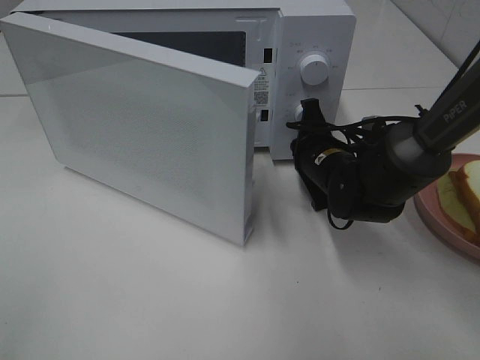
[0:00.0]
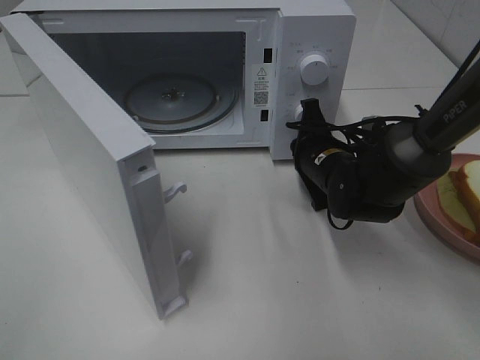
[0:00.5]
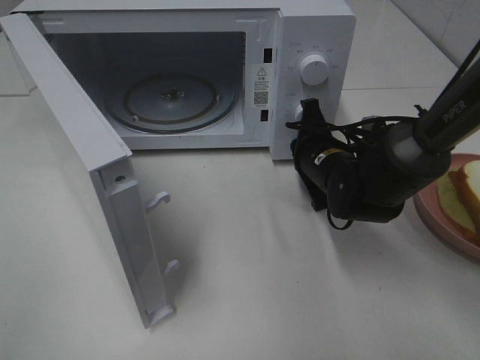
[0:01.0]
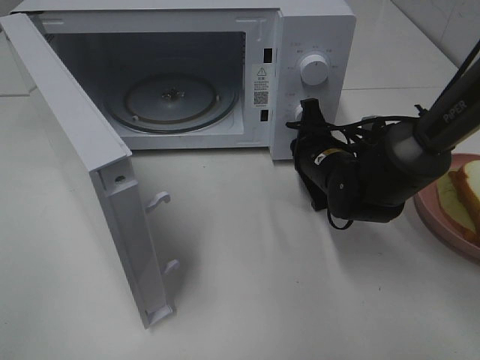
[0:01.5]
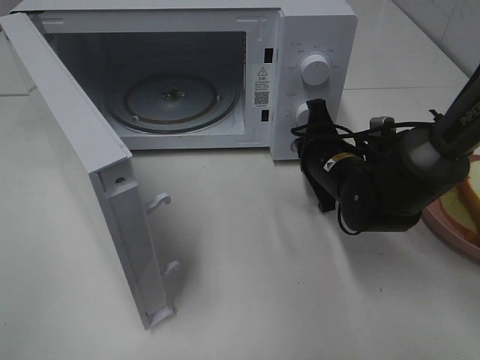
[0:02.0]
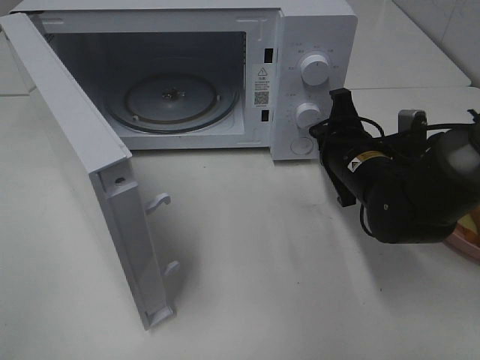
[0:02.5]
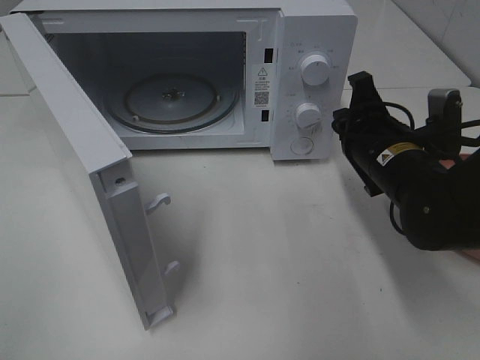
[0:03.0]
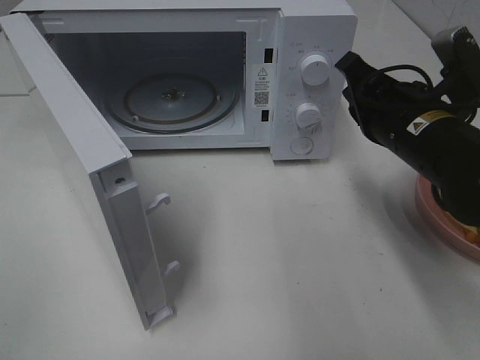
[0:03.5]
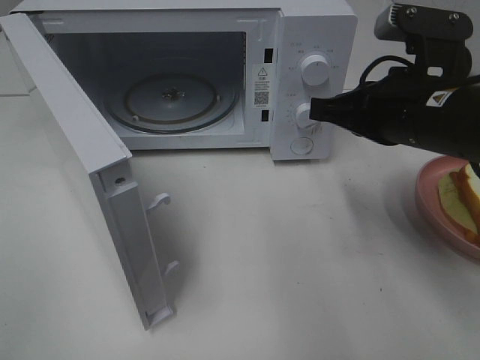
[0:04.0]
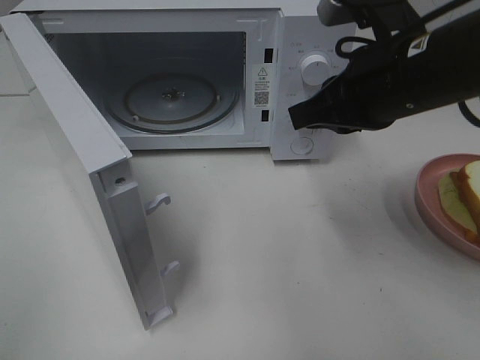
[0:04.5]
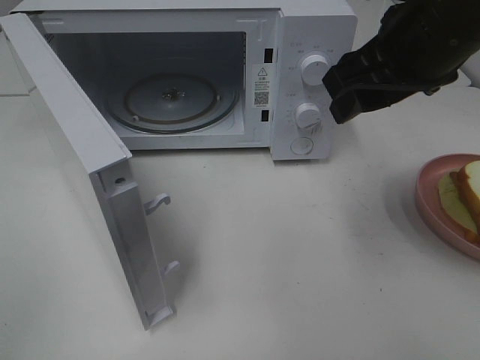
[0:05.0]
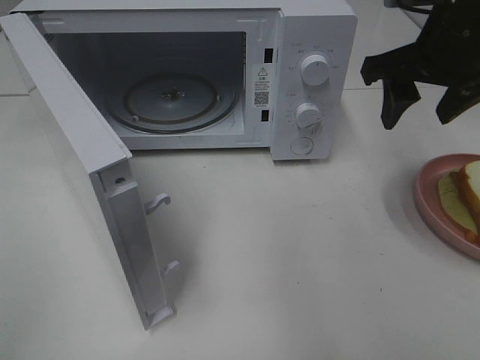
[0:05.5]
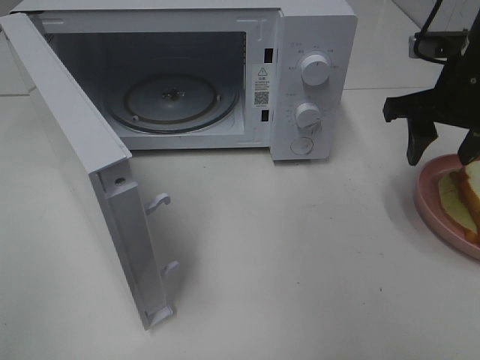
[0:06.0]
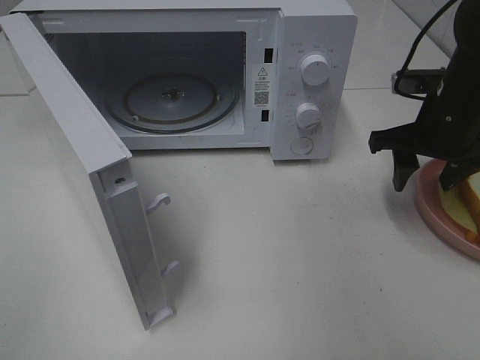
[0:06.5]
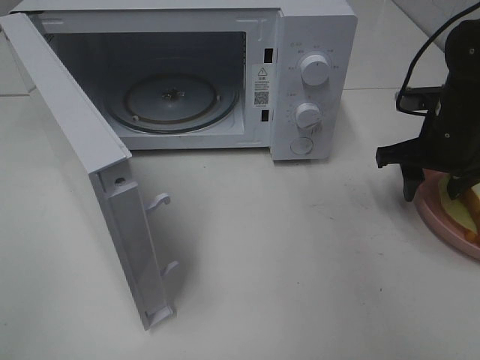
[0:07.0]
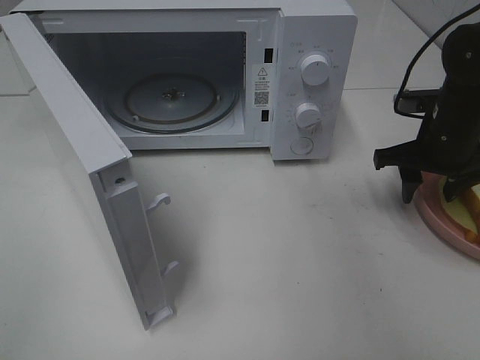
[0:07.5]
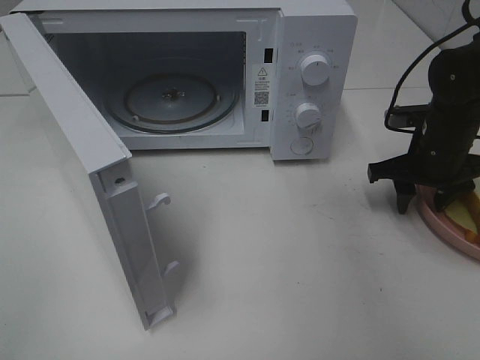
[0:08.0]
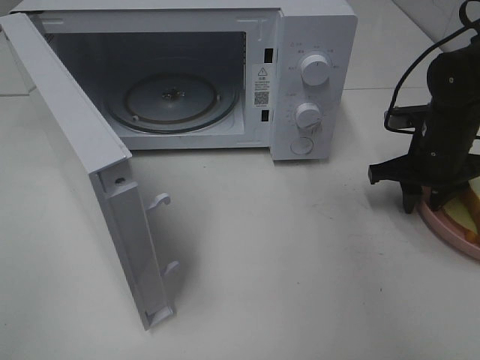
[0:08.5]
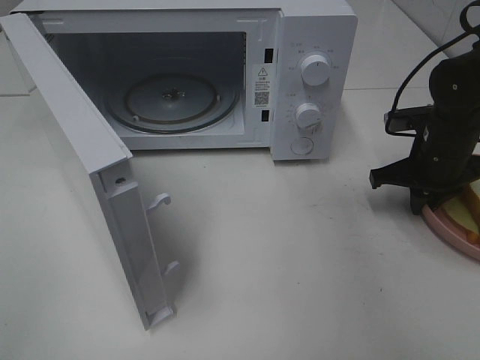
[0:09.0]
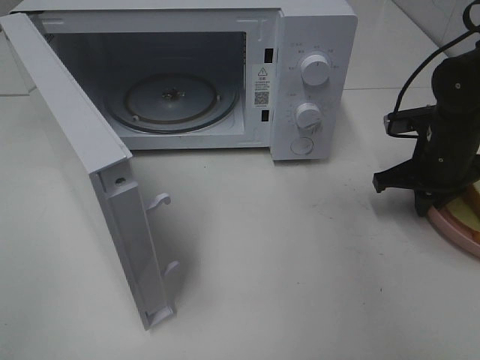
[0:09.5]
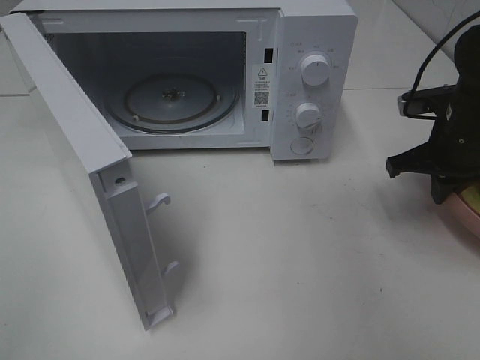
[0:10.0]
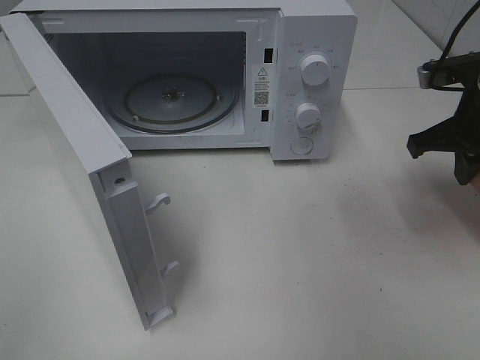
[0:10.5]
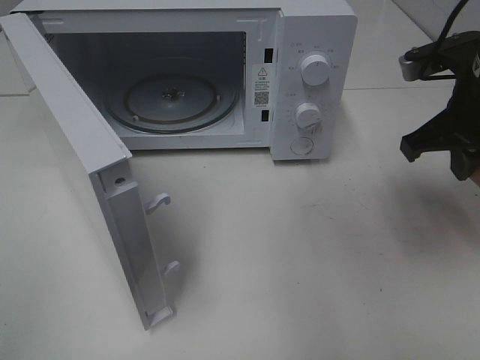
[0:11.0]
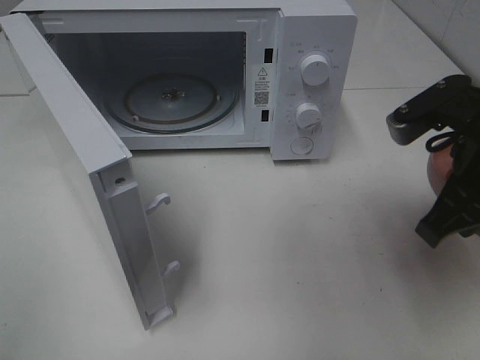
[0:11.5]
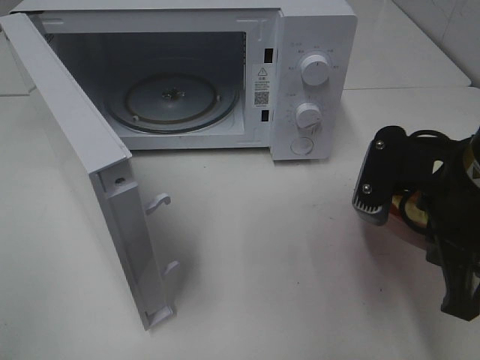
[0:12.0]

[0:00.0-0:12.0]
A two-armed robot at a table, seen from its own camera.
Task of the whole recording: Heat Sandwich.
Step, 0.0 to 2.0 s: Right hand: press the switch.
Step, 2.5 to 9.0 s: Right hand: grab the plate with the sandwich.
2.0 to 4.0 s: The right gripper heads upward and backward, covering some 15 cm.
4.0 to 6.0 s: The right gripper is displaced forward and to the right by approximately 10 cm, and opens.
6.0 to 8.0 s: The right gripper goes some 10 cm downward.
8.0 to 10.0 s: The right gripper closes its fingers.
10.0 to 12.0 s: The right gripper heads backward, to the left and upward, covering approximately 20 cm.

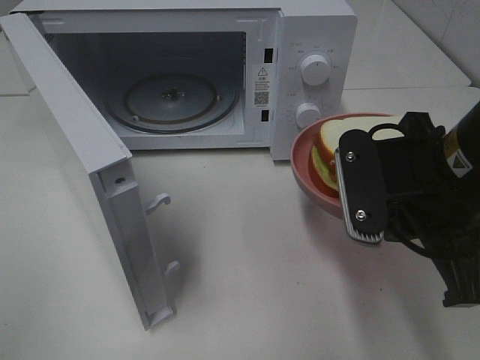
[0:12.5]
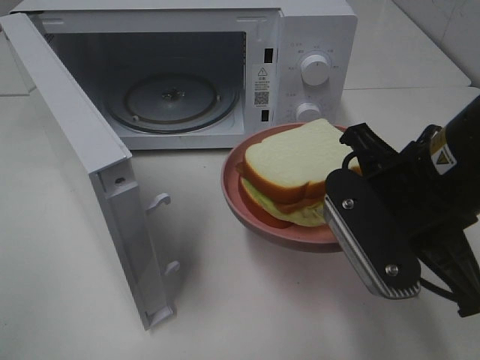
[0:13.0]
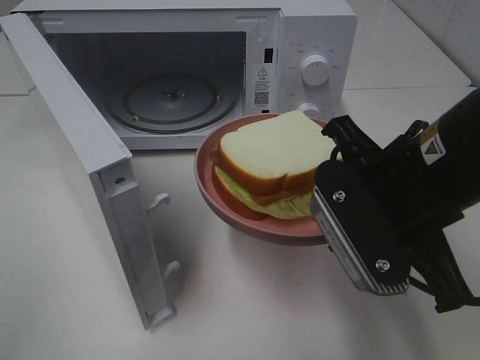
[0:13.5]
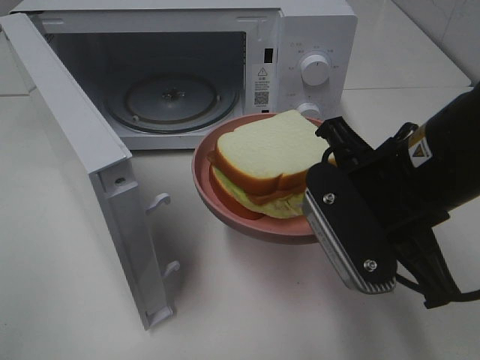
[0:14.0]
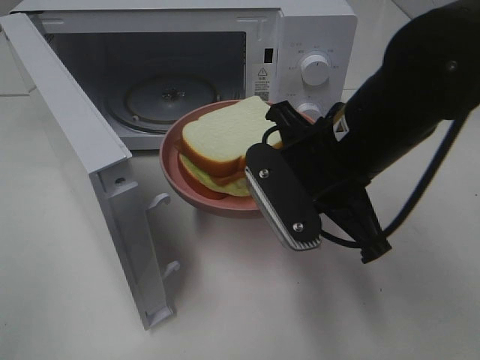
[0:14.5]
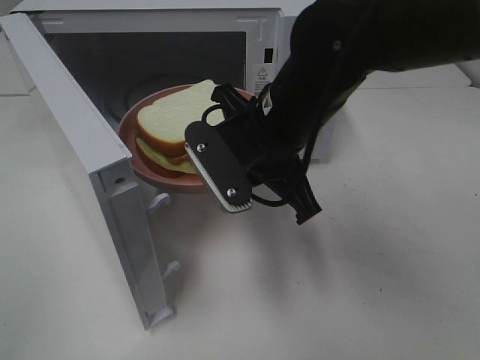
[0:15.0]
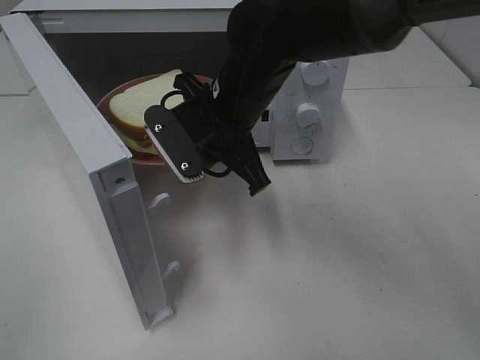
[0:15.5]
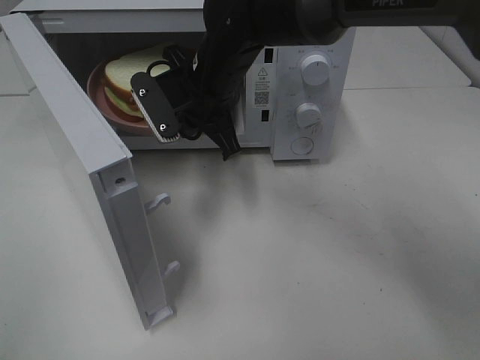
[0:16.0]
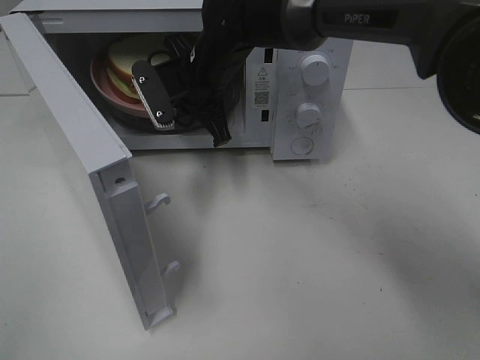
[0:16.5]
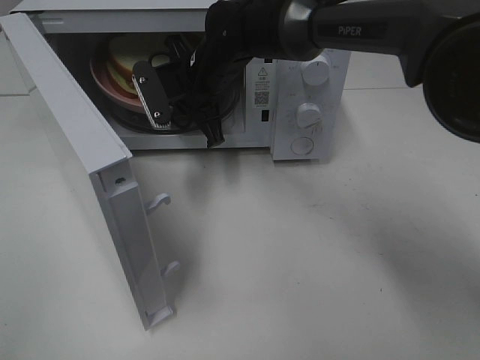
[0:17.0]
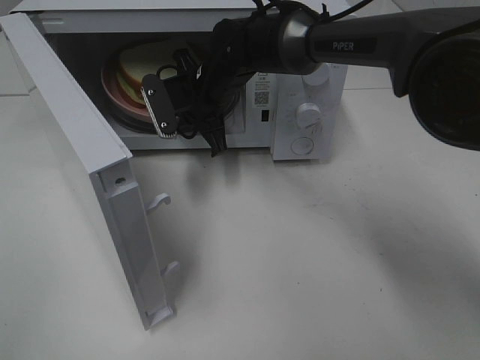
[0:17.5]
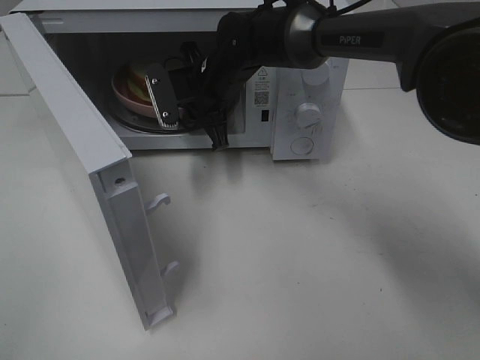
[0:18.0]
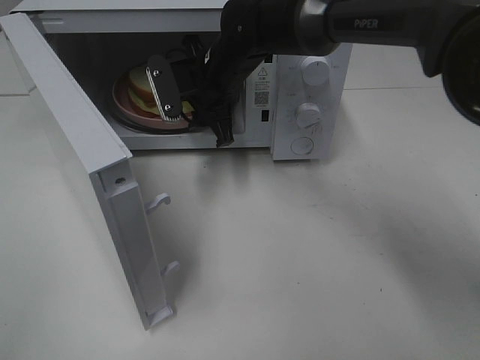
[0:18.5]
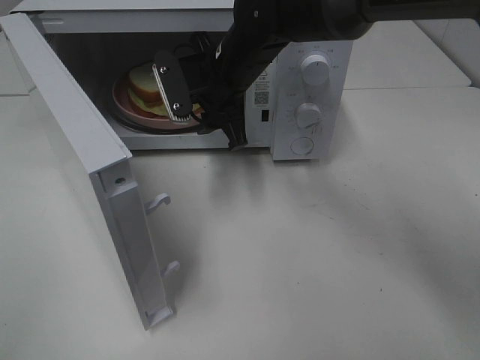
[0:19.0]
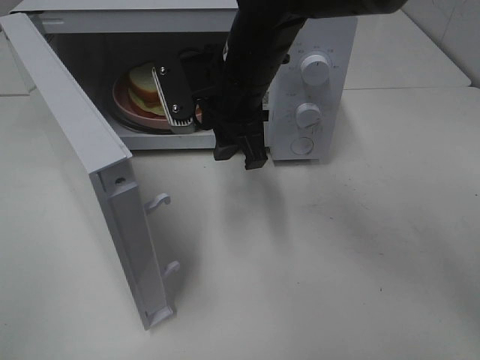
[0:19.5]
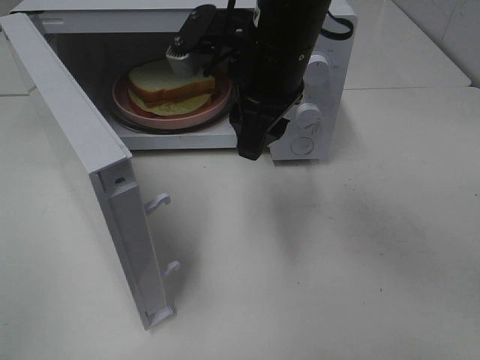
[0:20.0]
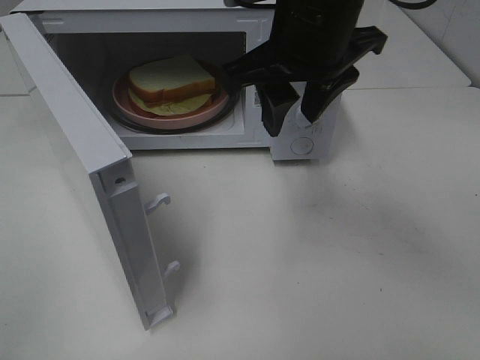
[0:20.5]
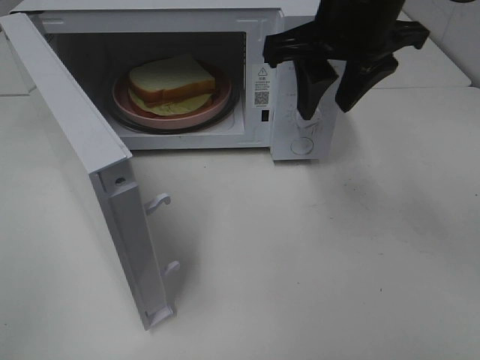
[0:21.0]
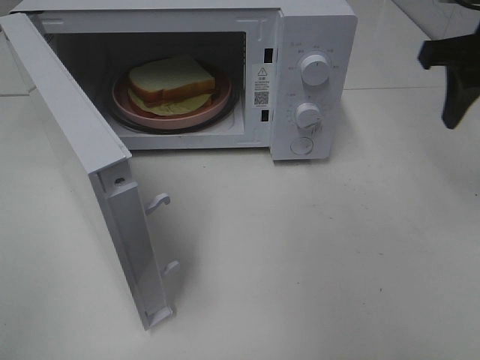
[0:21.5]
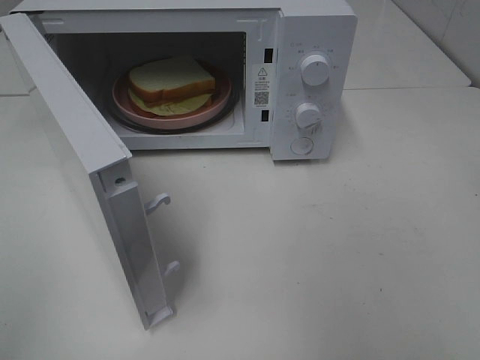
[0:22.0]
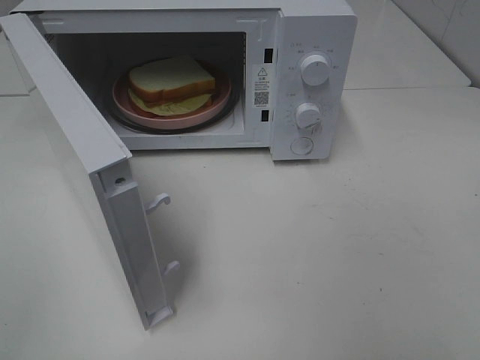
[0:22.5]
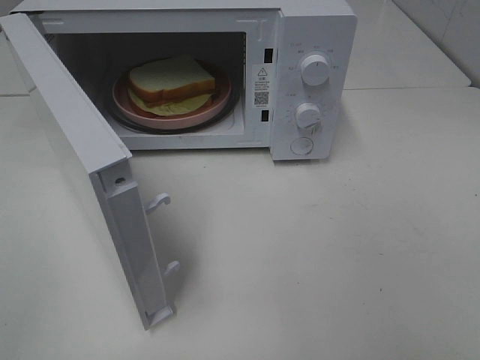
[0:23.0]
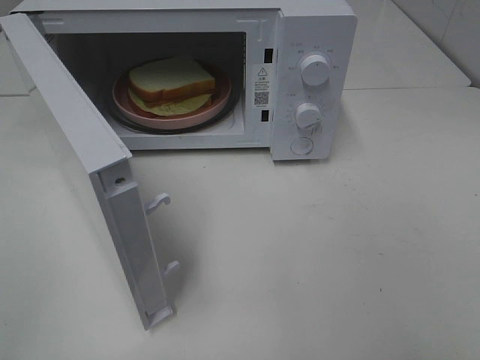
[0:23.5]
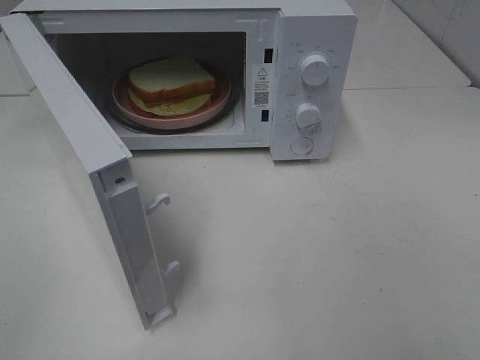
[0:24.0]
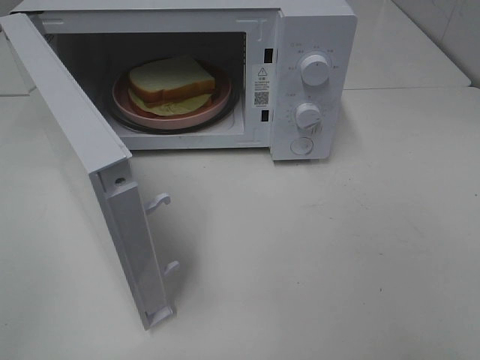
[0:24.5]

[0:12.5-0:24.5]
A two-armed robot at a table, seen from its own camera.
Task of the whole recording: Heat Sandwich.
Step, 12.5 to 19.0 s: Right hand: place the plate in the microwave.
12.5 to 14.5 s: The right gripper goes some 5 cm to the left.
14.5 to 16.5 s: The right gripper moves forward and to the left, approximately 25 cm.
16.5 to 18.5 s: The right gripper opens its fingers.
18.5 to 20.5 s: The right gripper goes roughly 20 cm backward, upward and to the right.
20.5 to 22.5 s: The right gripper heads backward and to the right, covering roughly 30 cm.

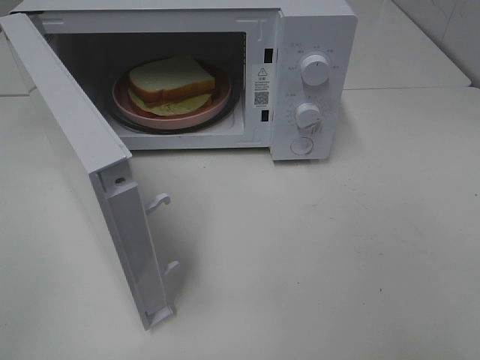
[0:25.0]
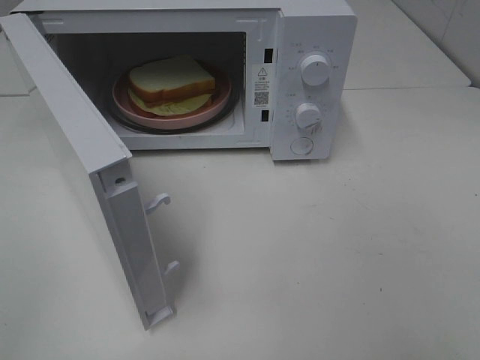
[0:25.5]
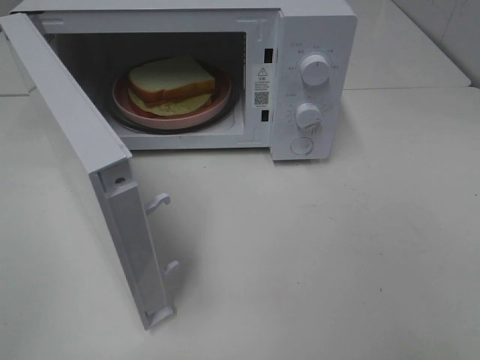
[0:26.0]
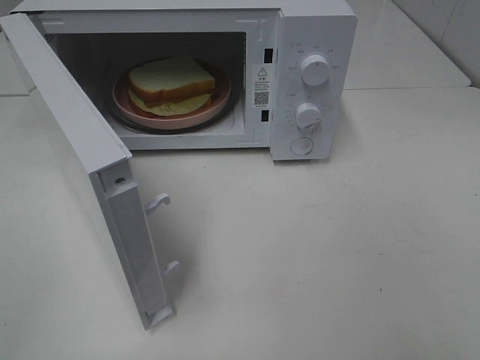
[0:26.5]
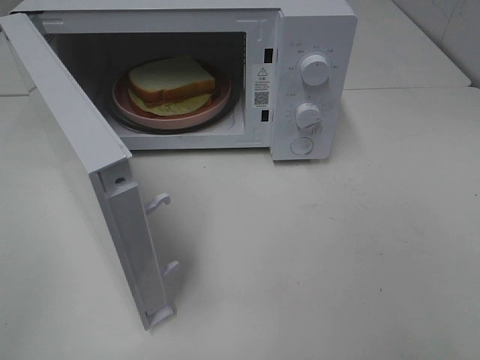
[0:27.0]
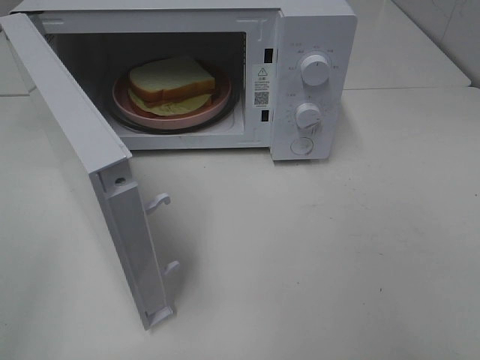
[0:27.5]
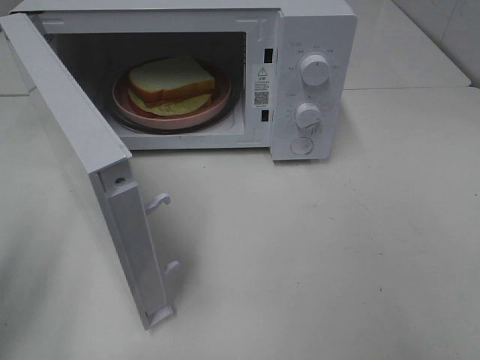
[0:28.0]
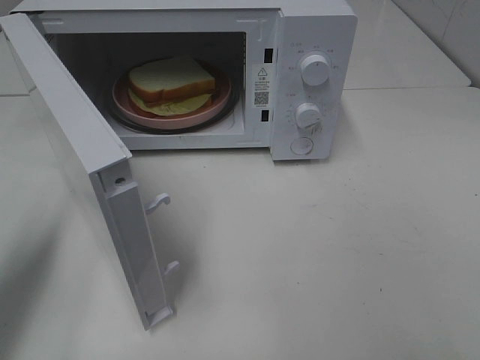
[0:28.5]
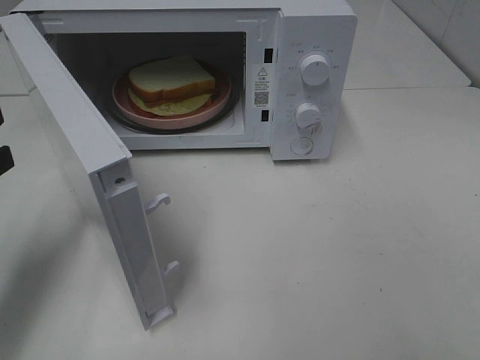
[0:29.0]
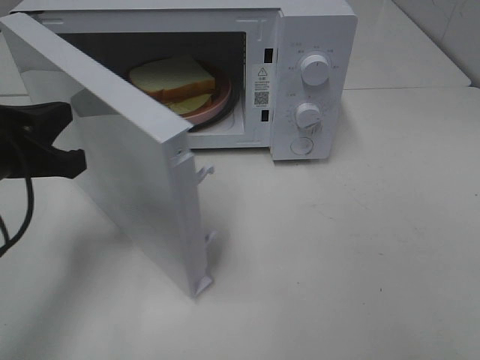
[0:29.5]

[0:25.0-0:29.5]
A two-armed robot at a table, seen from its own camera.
Task of the whole recording: Heat Sandwich.
25.0 to 27.0 s: Neither gripper changes place.
27.0 to 29.5 s: The left gripper goes some 25 cm forward, to the right and downward, and closes up.
